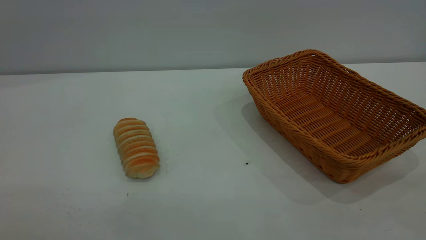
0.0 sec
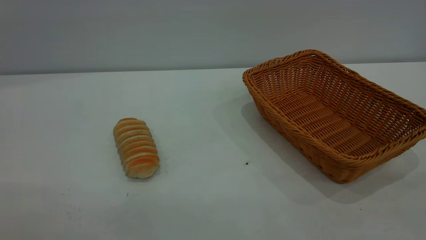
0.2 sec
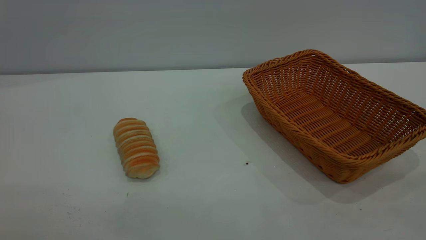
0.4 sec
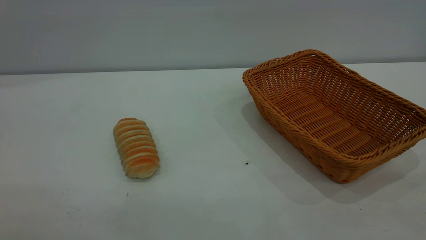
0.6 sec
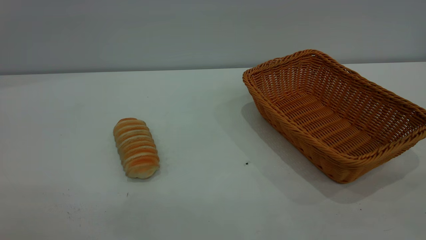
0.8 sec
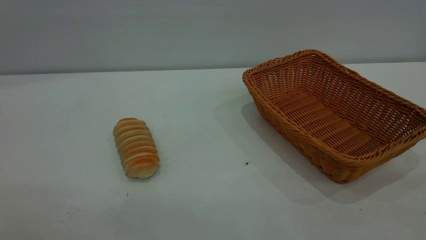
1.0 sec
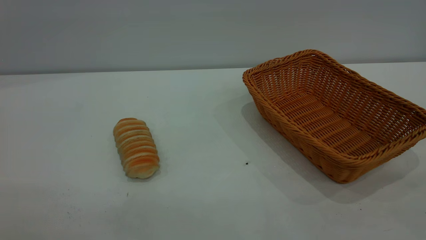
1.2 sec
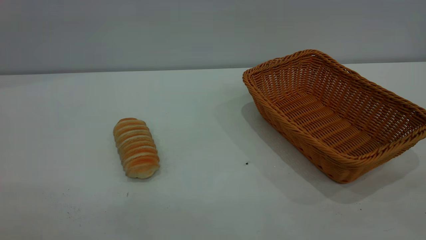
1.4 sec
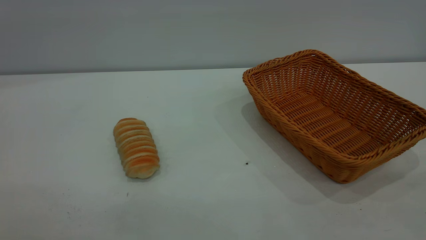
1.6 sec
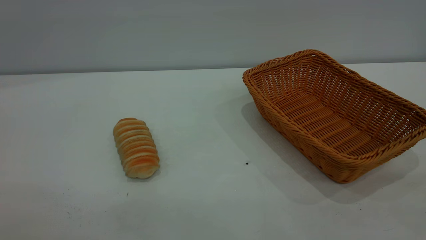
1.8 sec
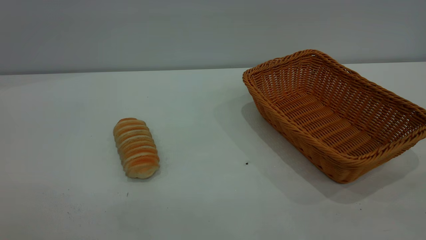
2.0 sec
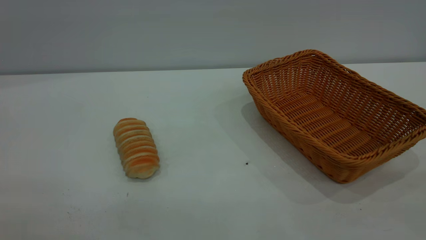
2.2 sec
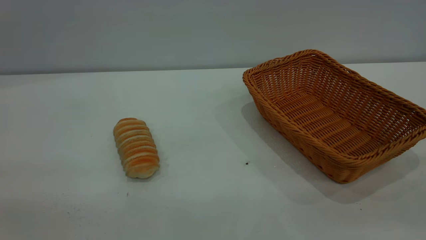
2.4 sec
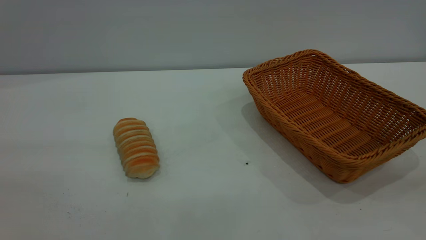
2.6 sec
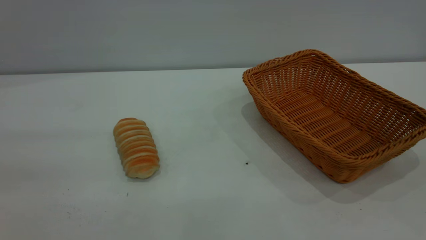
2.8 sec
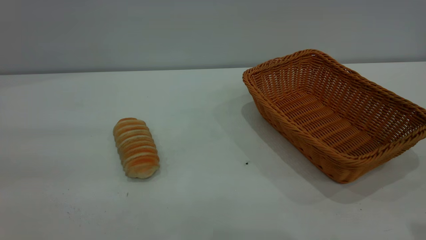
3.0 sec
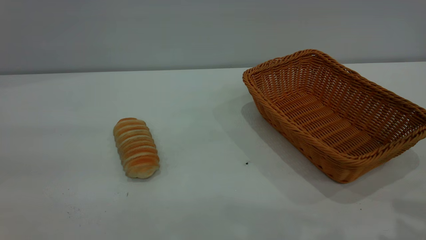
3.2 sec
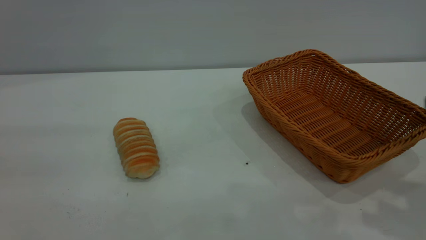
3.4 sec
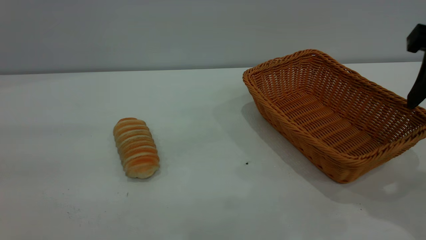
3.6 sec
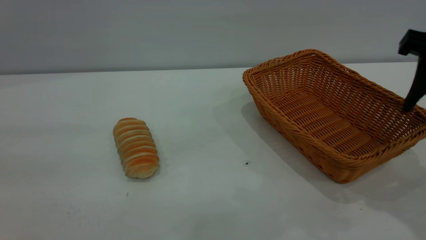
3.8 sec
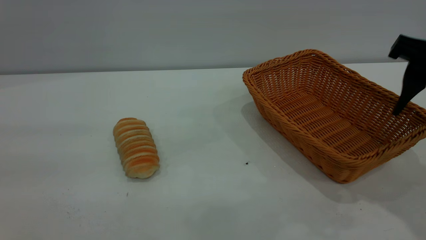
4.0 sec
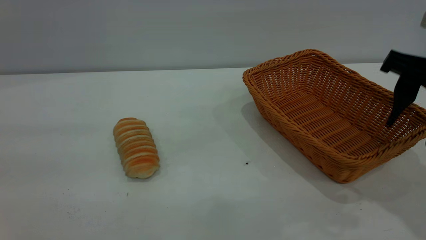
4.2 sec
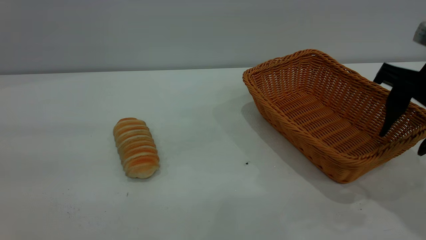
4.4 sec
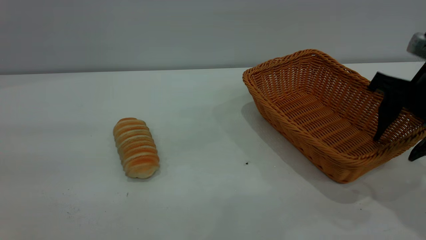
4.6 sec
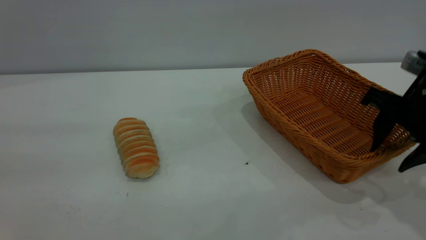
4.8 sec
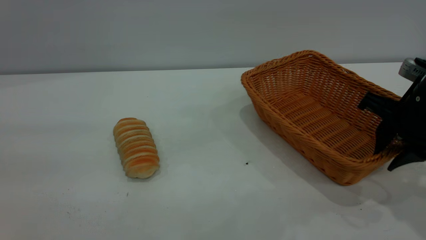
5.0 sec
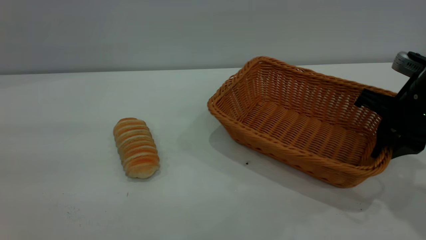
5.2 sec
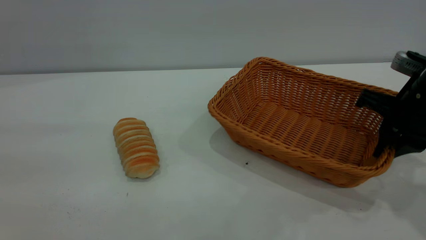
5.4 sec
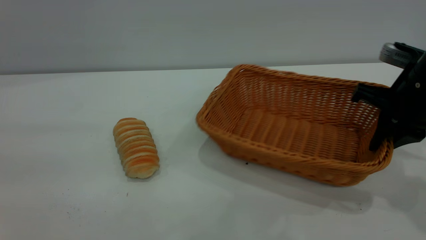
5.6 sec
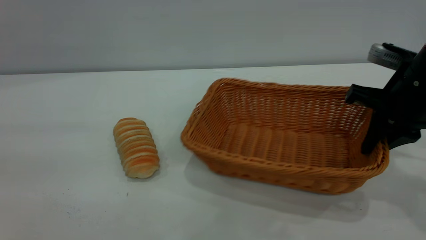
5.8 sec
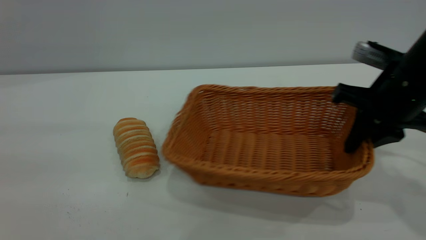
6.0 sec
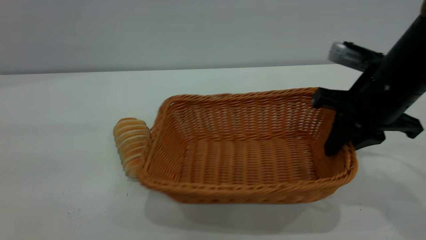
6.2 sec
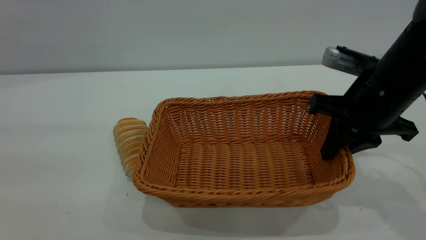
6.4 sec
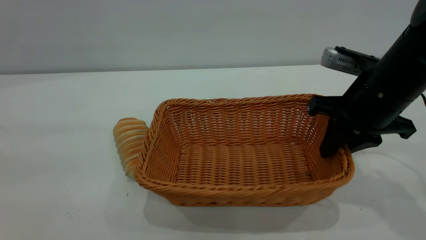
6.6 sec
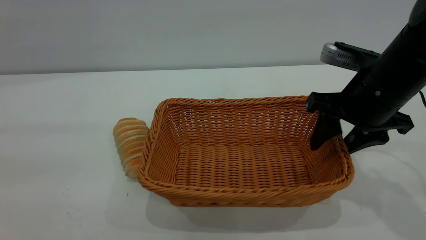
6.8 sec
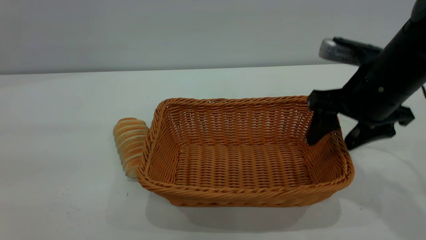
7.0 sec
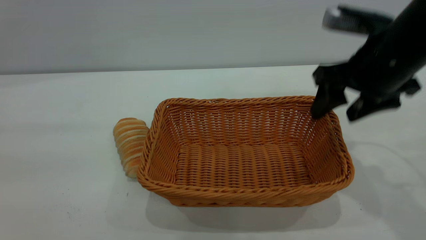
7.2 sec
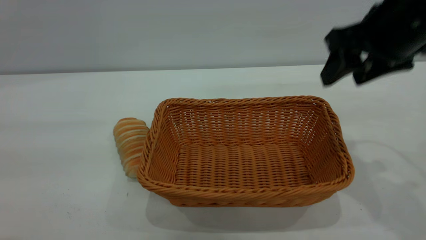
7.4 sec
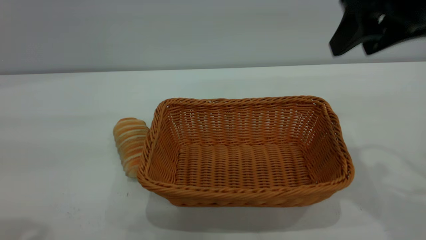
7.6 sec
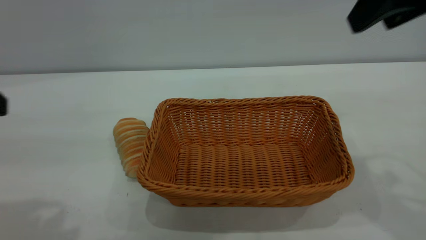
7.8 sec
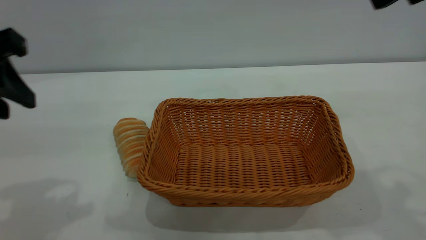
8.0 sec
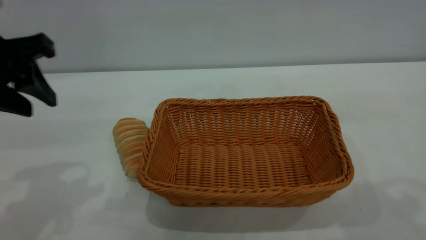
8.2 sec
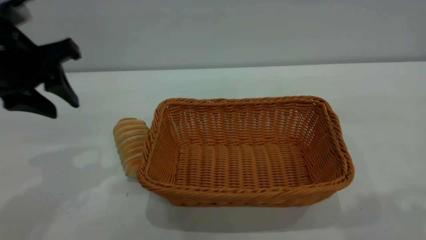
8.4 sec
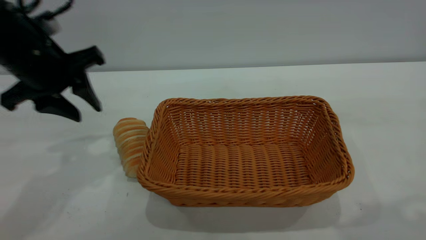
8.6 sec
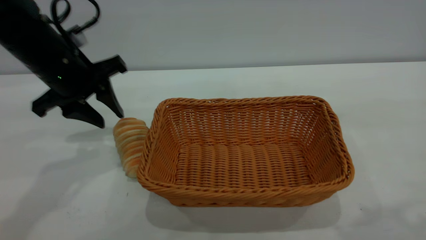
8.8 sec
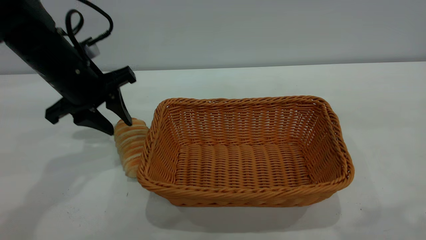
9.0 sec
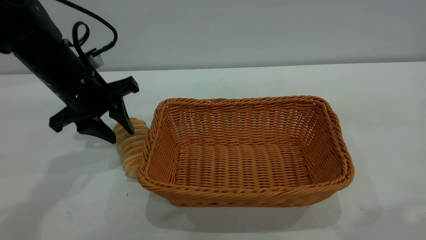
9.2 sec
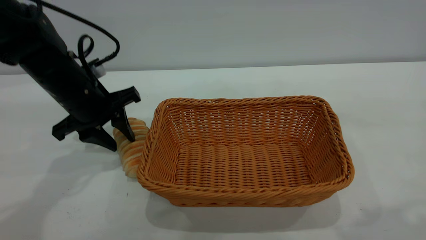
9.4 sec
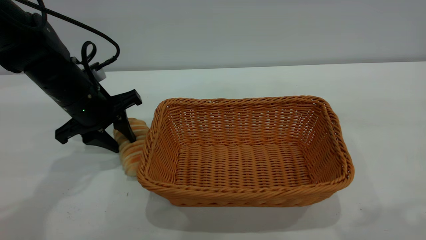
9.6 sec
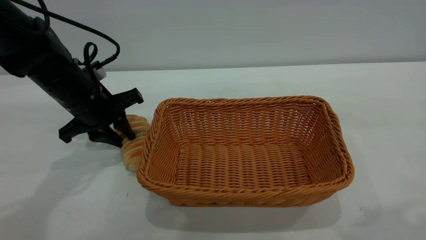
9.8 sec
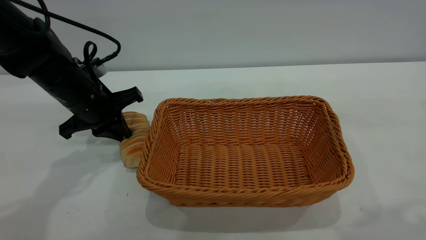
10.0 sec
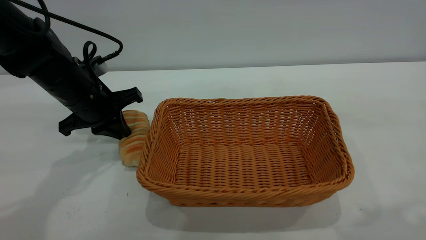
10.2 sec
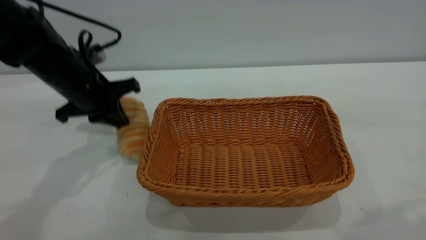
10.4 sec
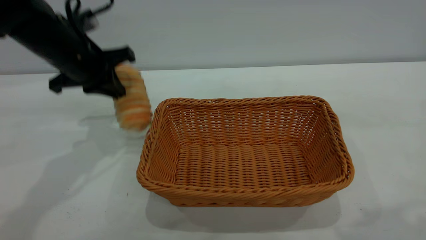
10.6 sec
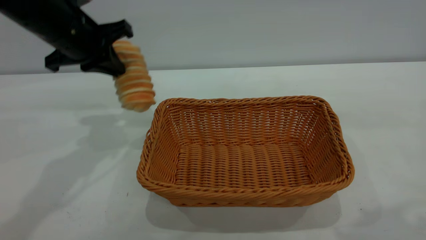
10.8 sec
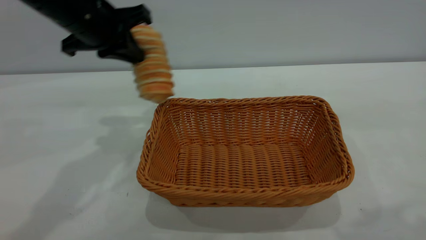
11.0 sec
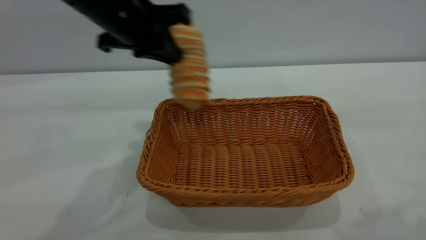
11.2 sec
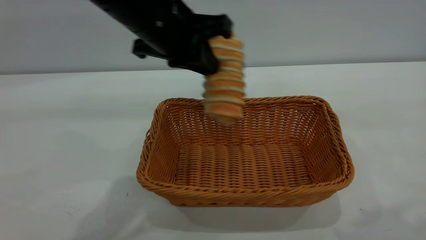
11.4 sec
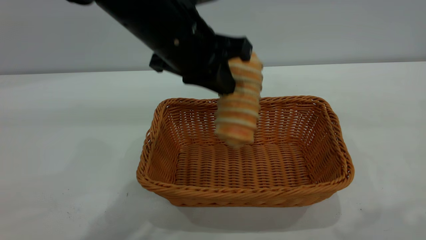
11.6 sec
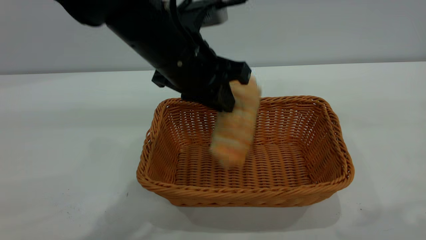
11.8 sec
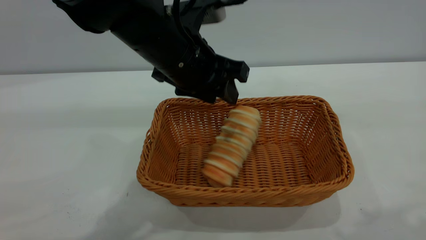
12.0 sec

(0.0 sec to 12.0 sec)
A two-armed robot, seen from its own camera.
Task of the whole recording: One hand grasps the yellow basket and places it in the middle of the table, while the other hand picks up the long bread and puts it into the yellow basket.
Step, 0.0 sec - 7.2 sec: Move the basket to the center of view.
0.0 sec - 1.6 sec: Both grippers stay put.
3.0 sec - 4.4 sec: The right gripper goes roughly 15 cm forward and downward.
4.4 sec - 6.0 sec: The right gripper changes place by about 5 cm, and closes up.
6.0 sec - 7.6 sec: The left gripper is displaced forward by roughly 5 cm. The right gripper heads upward, covering some 15 cm, and opens its fingers.
7.6 sec - 9.0 sec: The right gripper heads backward and upward, covering roughly 15 cm. The left gripper moves forward and downward, roughly 25 cm.
9.0 sec - 10.4 sec: The left gripper closes up.
10.4 sec - 12.0 sec: The left gripper goes approximately 15 cm to the right, and opens up.

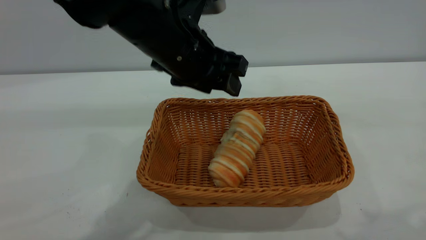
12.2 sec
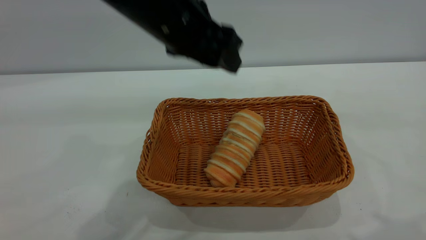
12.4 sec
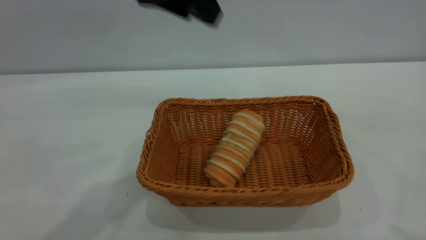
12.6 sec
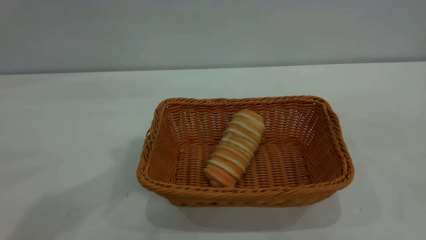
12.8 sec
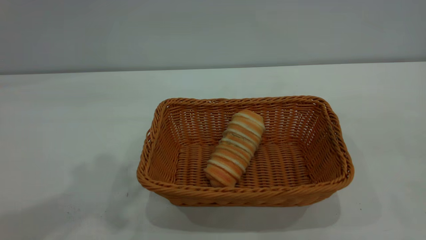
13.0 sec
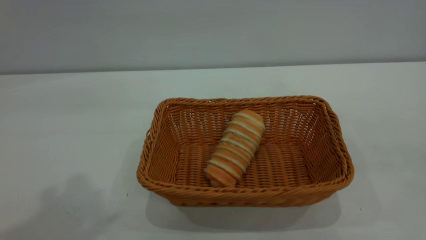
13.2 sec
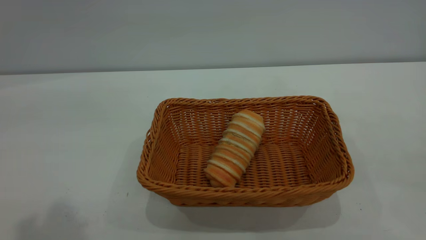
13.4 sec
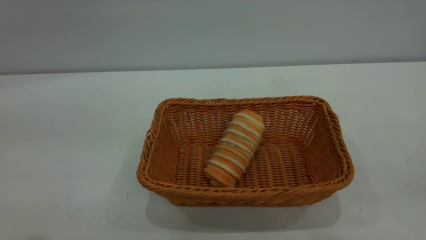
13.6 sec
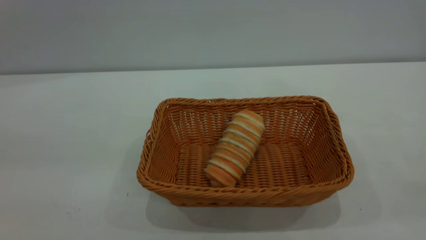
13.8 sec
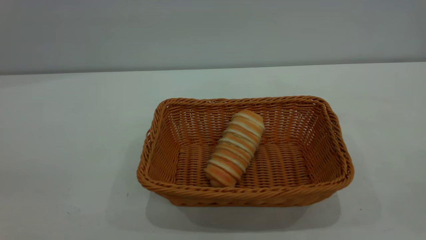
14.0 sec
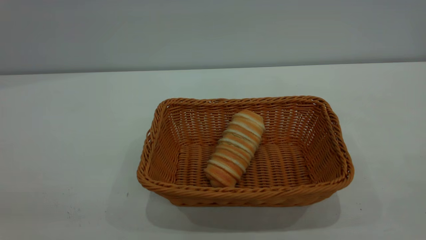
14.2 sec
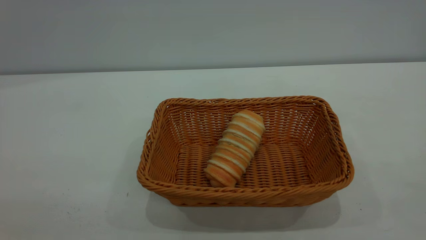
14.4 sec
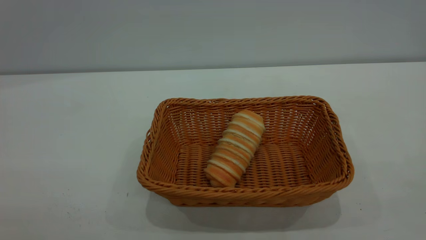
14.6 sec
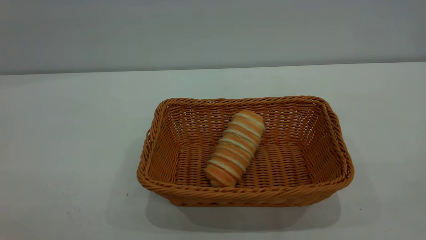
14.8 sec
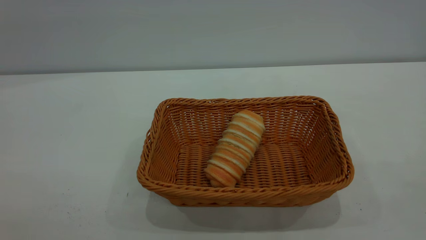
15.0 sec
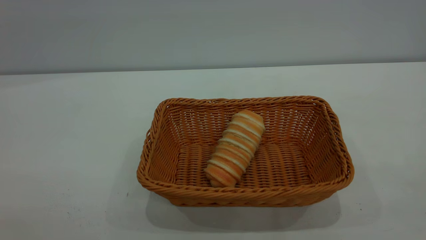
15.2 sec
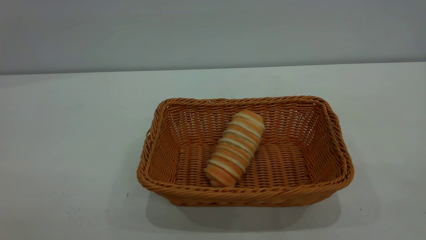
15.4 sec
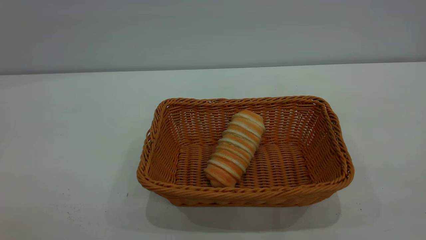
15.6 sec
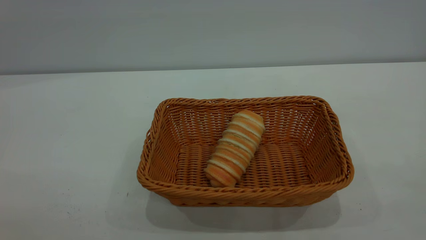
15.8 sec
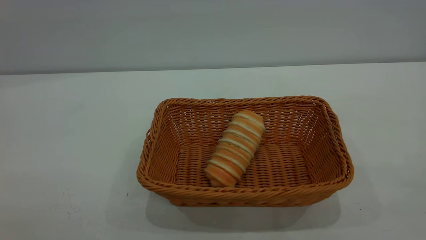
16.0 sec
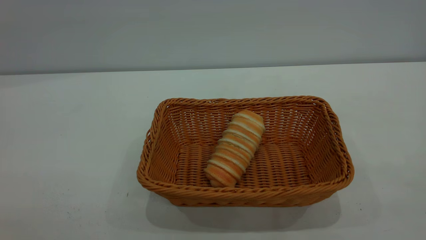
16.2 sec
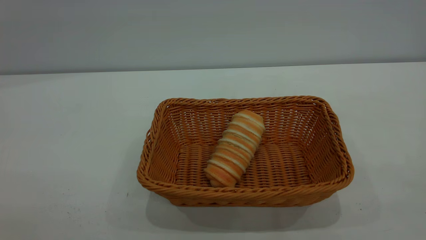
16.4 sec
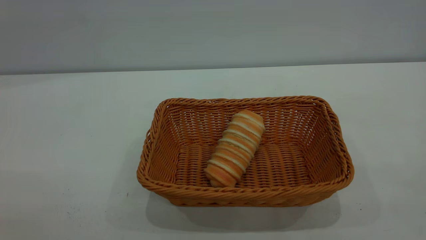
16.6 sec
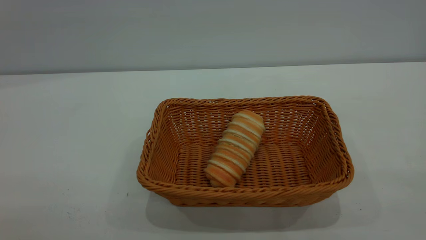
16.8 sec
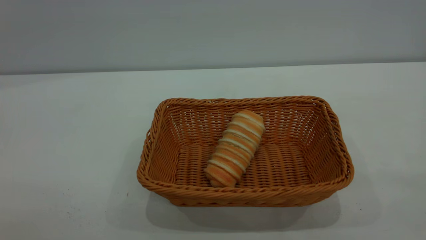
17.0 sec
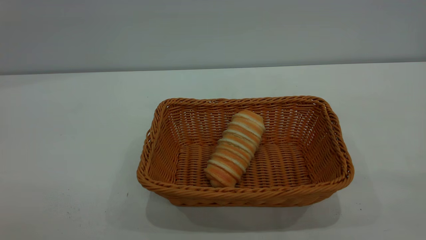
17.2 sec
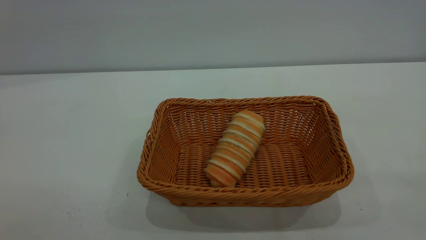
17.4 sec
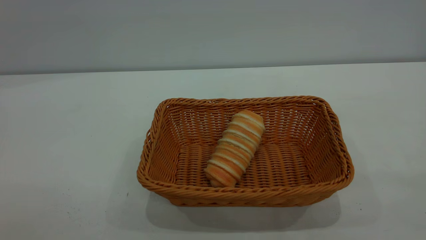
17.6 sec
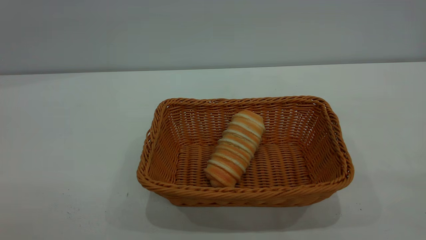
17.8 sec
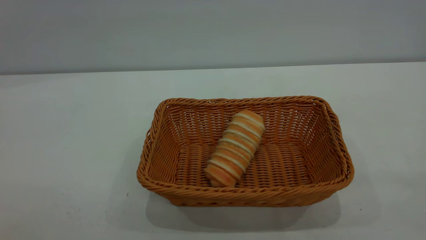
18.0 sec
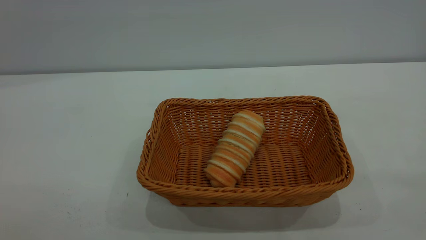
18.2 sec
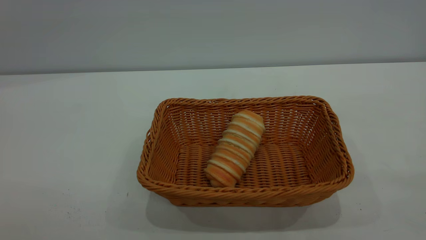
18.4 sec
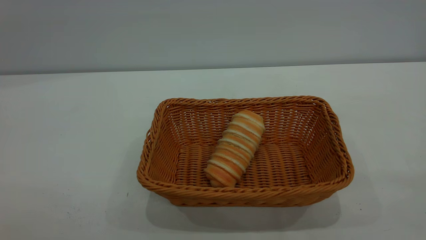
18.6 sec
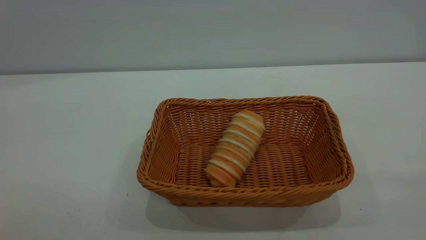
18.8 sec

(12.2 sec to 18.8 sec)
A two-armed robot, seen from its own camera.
Task of the whole recording: One hand grasps the yellow basket and places it in the middle of the table, while the other hand picks up the long bread and puts it into the yellow basket.
12.2 sec - 13.8 sec: The right gripper heads backward, covering roughly 15 cm; the left gripper shifts some 40 cm backward, upward and to the left.
17.2 sec - 18.8 sec: Both grippers stay about where they are.
